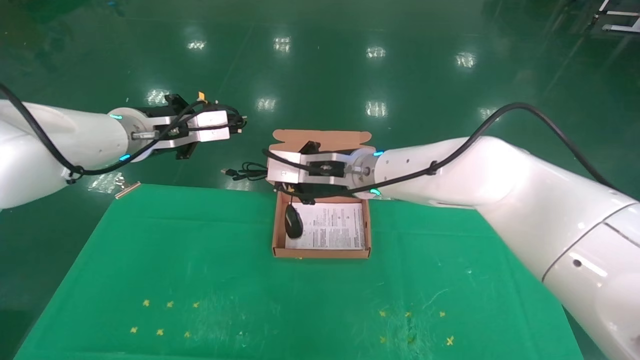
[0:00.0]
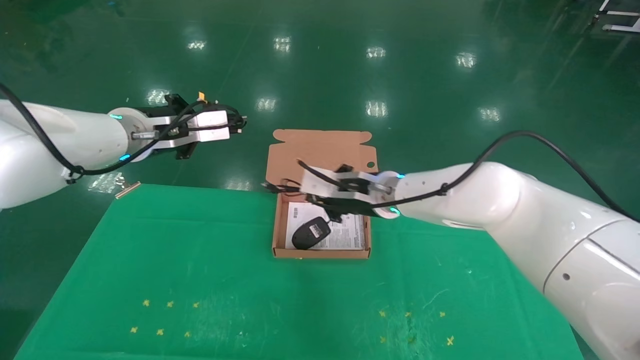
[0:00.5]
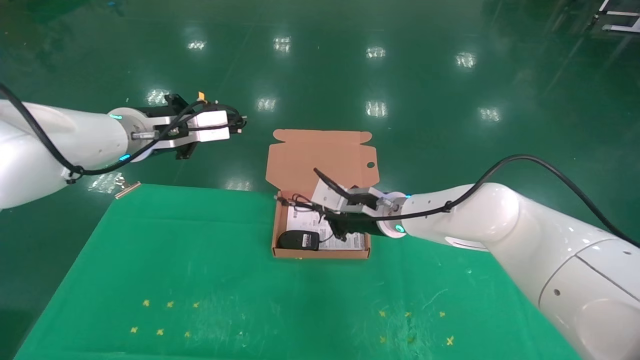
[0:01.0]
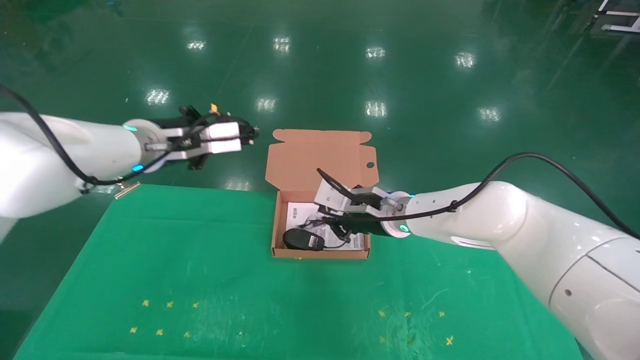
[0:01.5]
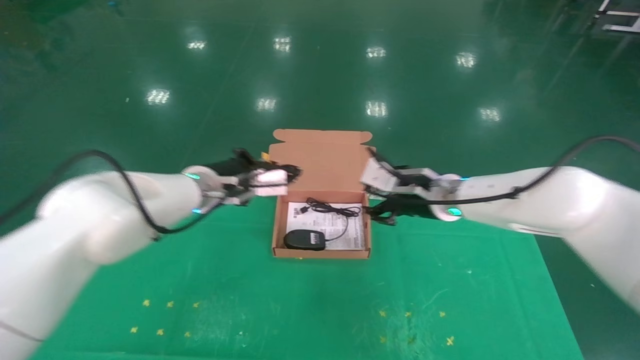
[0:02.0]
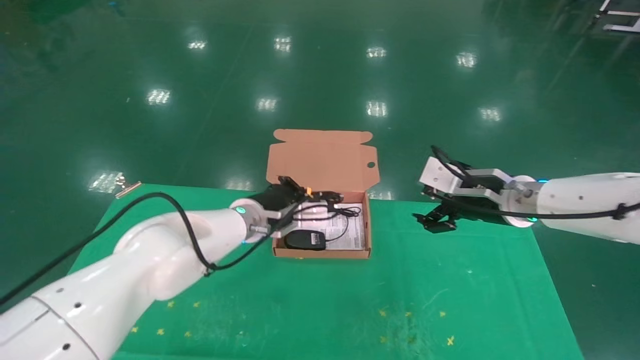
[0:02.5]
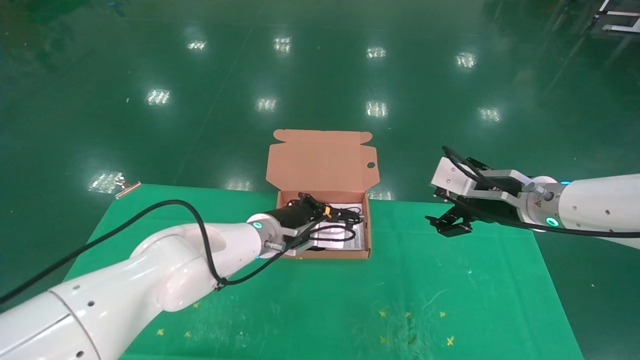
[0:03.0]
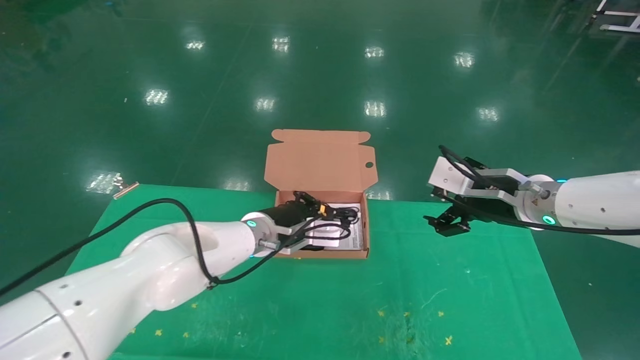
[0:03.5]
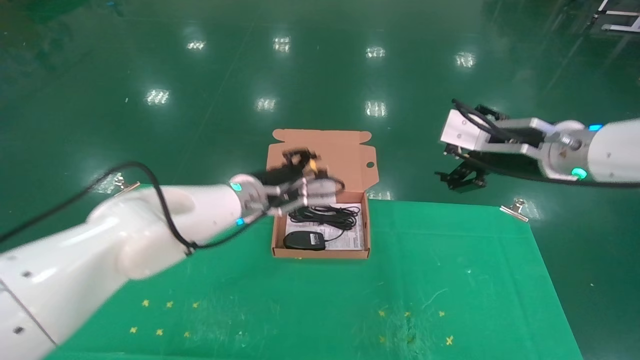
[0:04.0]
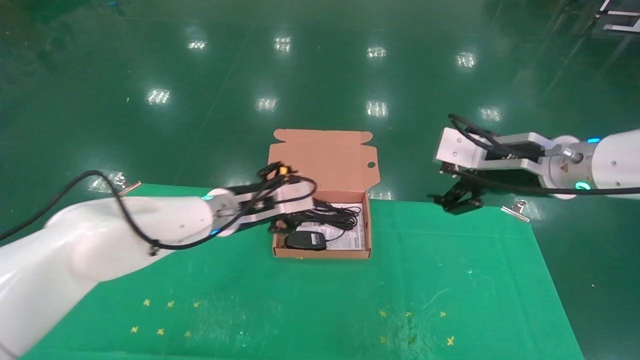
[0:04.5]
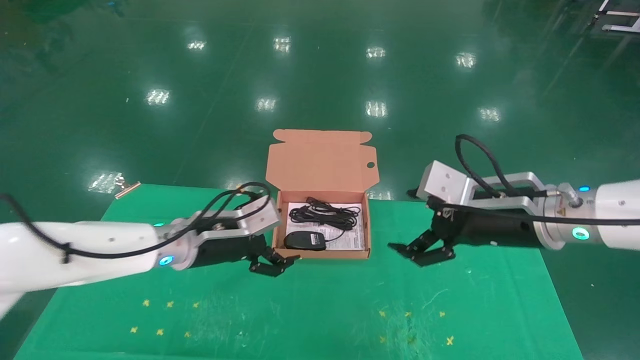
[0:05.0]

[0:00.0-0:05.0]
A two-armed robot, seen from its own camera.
Task of the whole recording: grasp data cable left put into box grasp mouse right put into box.
Step, 0:00.0 to 0:04.0: Place the mouse and power cord into the box.
0:00.0 to 0:02.5: The right gripper heads to the right, covering roughly 20 cm, and opens its fingers; the left gripper is displaced downward and to the right by roughly 20 cm.
0:02.5 to 0:05.0: The right gripper shifts some 10 cm backward; the left gripper heads to the left and backward, covering roughly 10 cm, and opens up.
